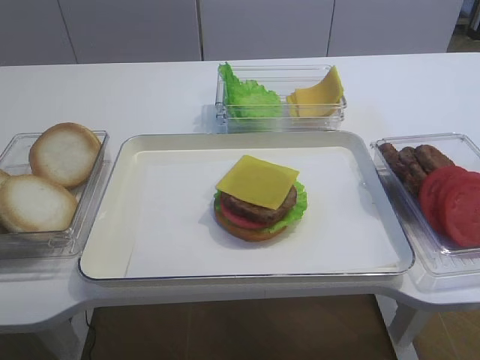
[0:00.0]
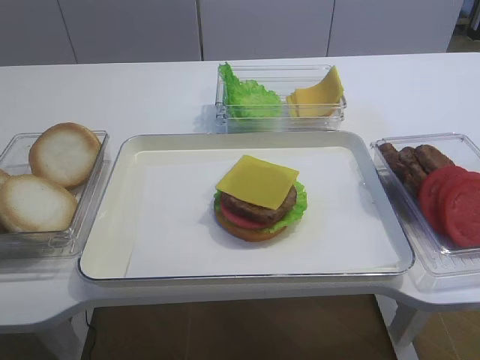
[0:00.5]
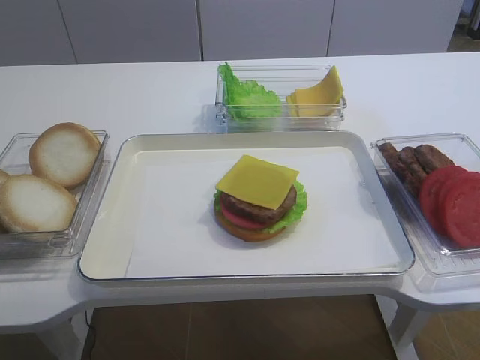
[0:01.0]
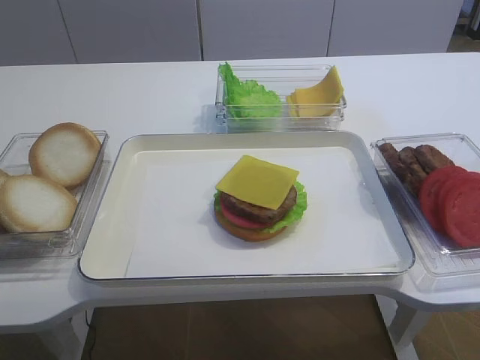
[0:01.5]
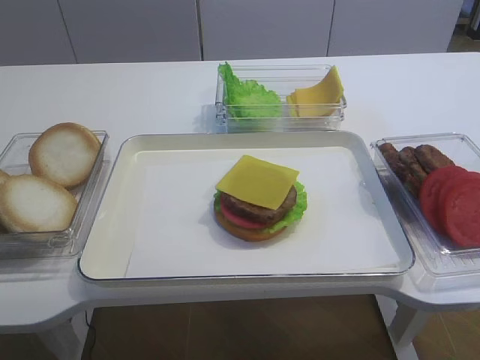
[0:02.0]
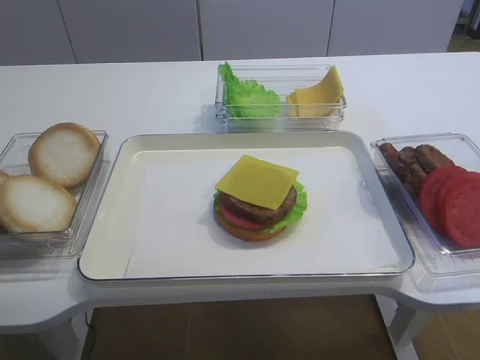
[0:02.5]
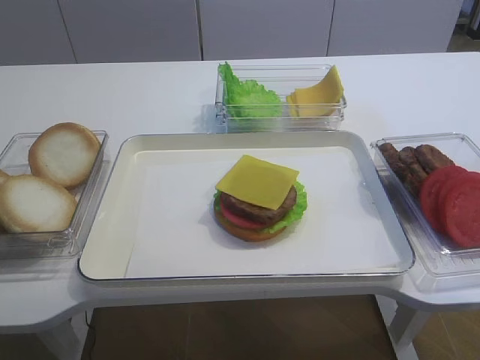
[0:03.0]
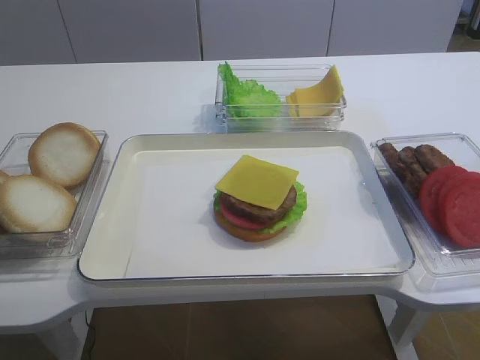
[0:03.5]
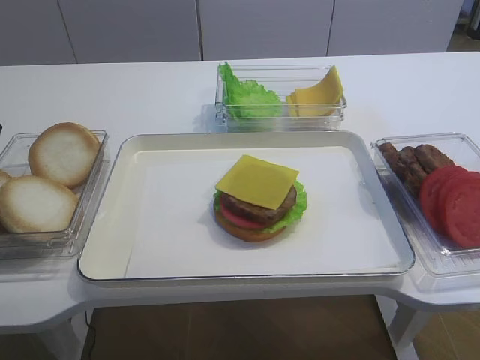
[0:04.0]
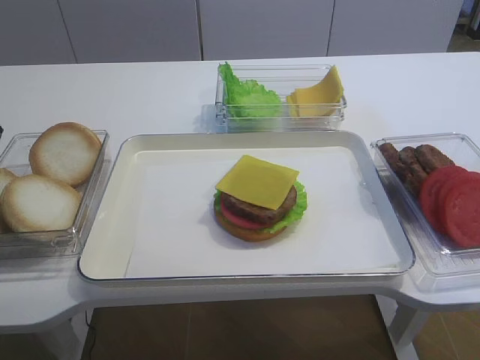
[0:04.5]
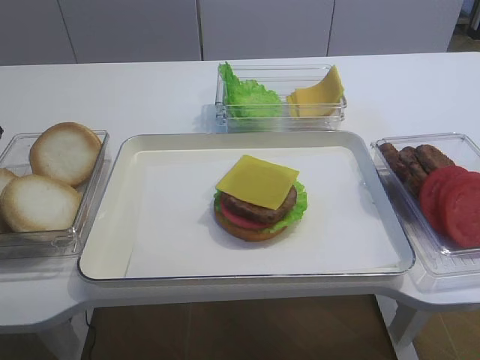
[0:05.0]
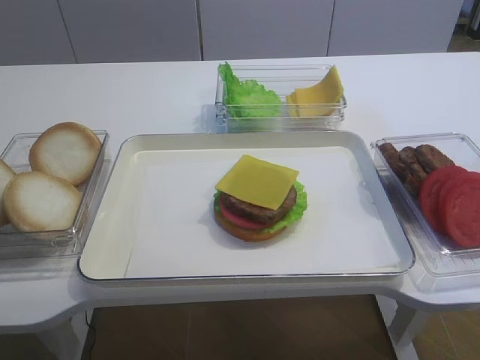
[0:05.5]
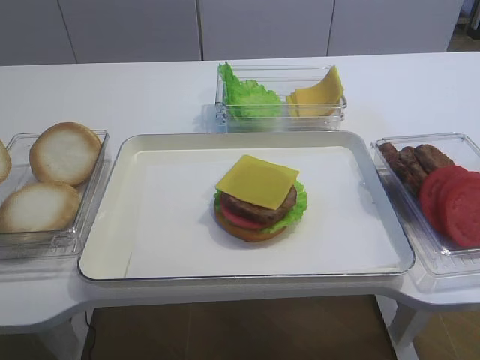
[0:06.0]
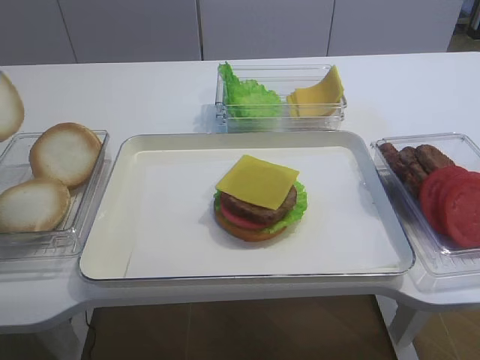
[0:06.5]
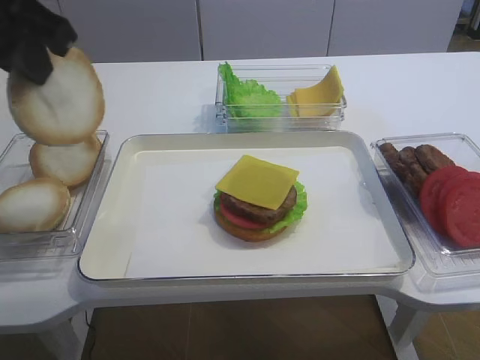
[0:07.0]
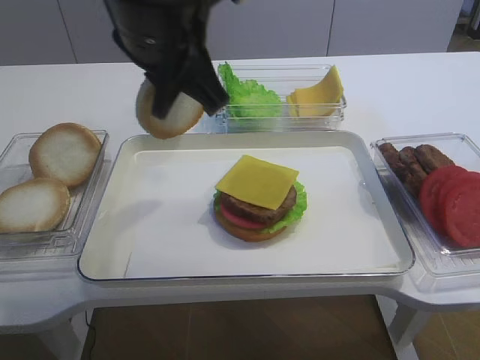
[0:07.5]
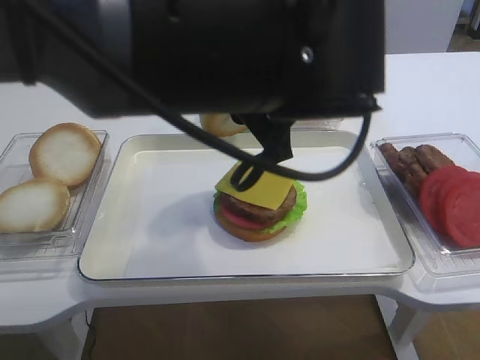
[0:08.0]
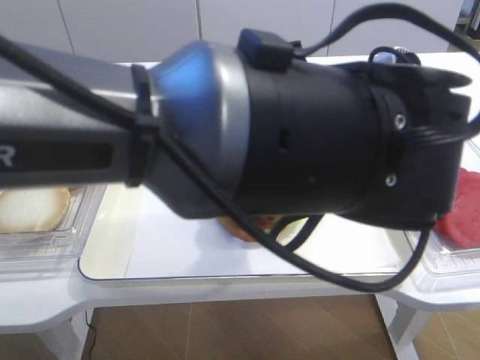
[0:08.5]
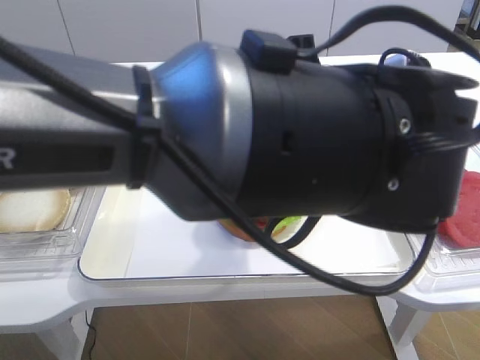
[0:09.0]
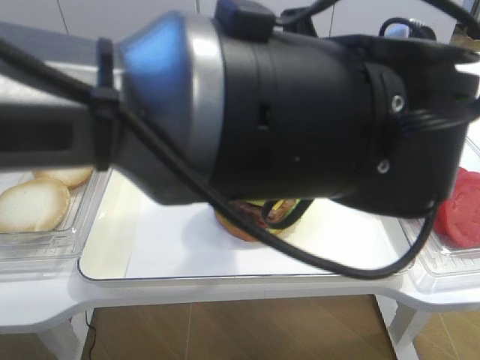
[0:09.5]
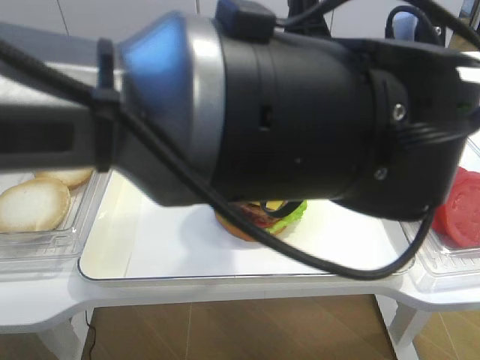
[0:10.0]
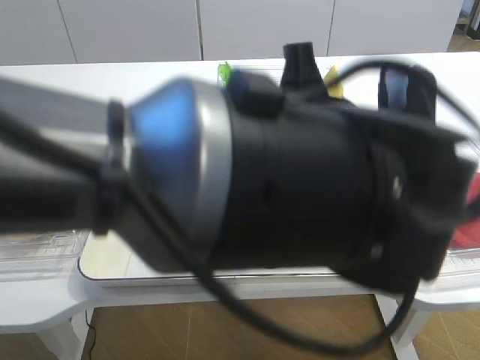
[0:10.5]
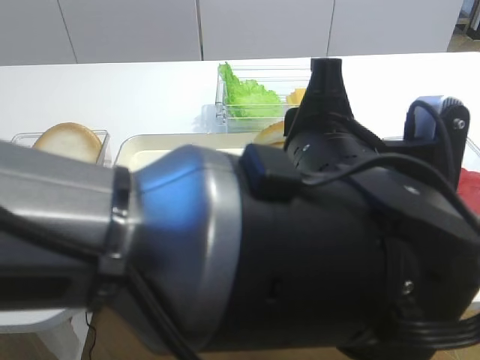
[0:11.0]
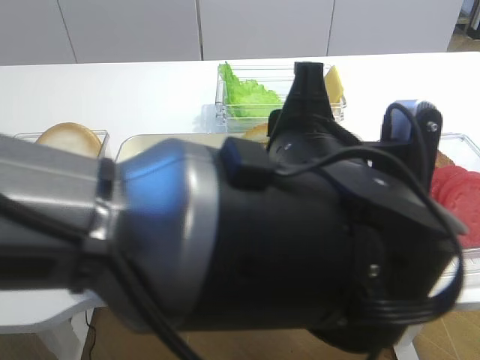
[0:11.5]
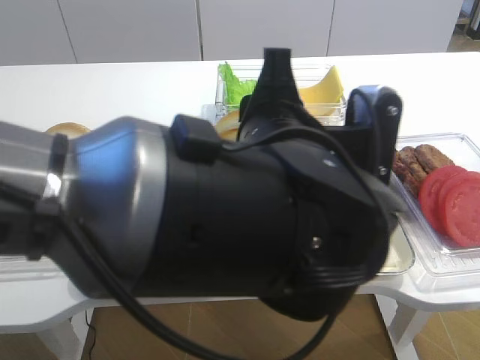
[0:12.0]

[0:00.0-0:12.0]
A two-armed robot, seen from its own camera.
Step, 0:00.0 to 0:06.0: Pick up the hamburger lid with the left gripper.
0:04.0 to 0:06.0: The left gripper travels upward by some 5 cm, and closes up.
0:06.0 to 0:08.0: The left gripper travels to the right by about 35 cm.

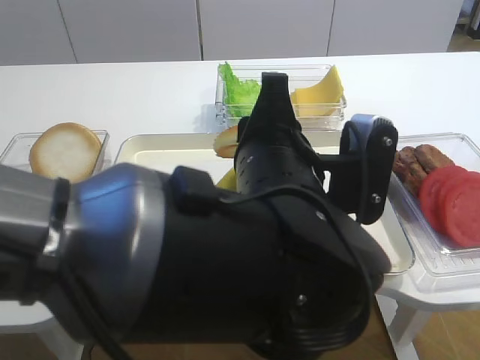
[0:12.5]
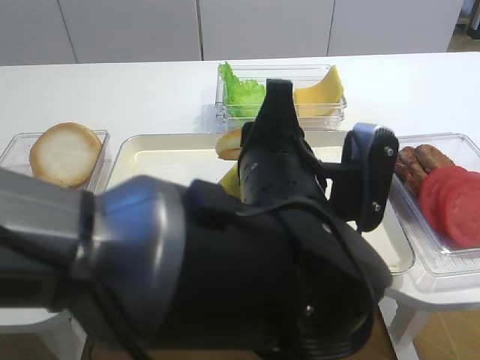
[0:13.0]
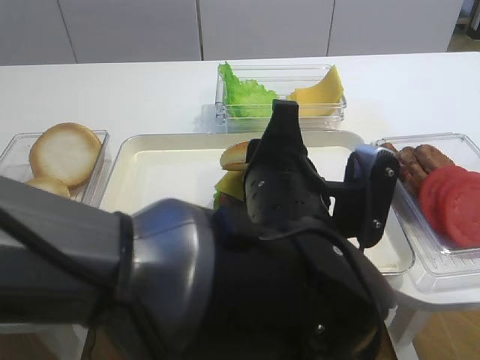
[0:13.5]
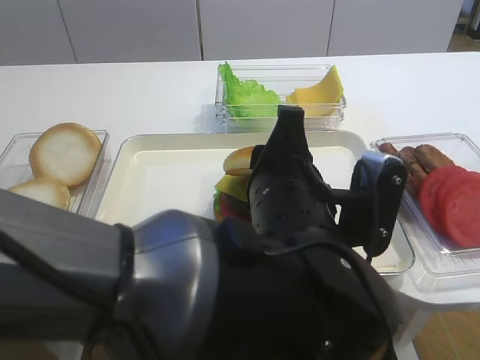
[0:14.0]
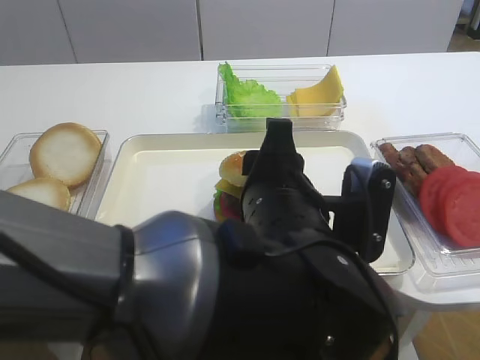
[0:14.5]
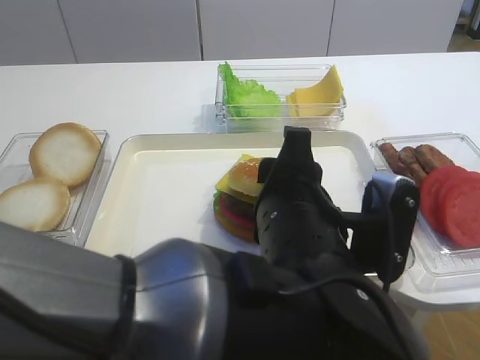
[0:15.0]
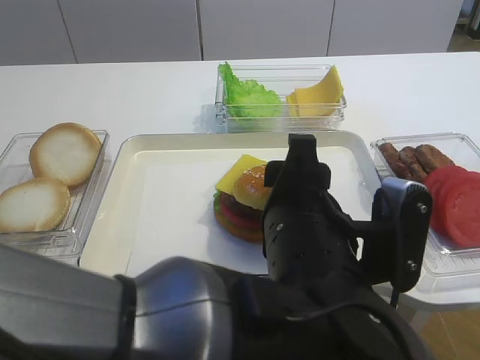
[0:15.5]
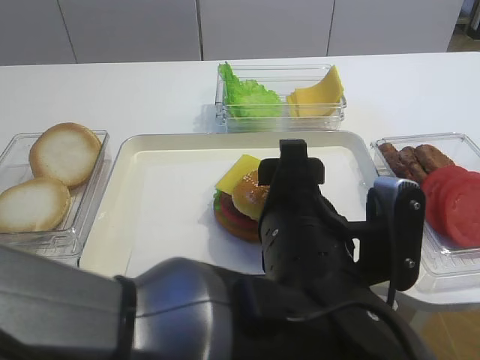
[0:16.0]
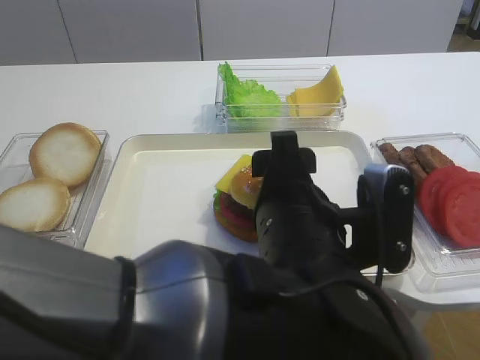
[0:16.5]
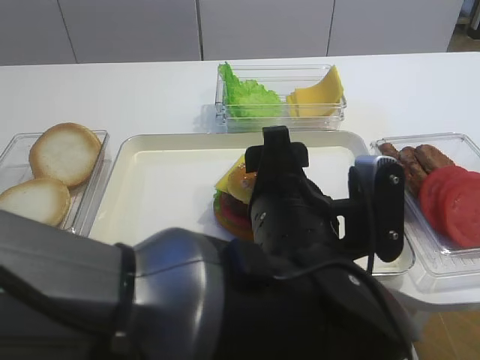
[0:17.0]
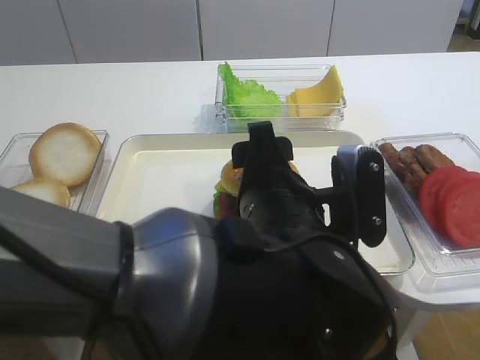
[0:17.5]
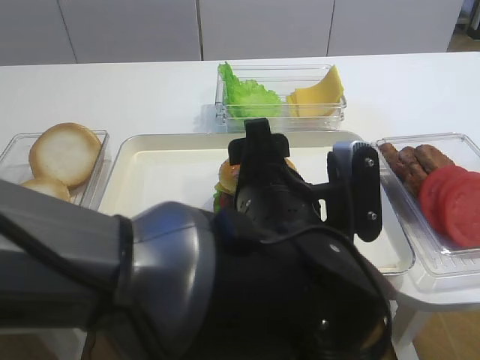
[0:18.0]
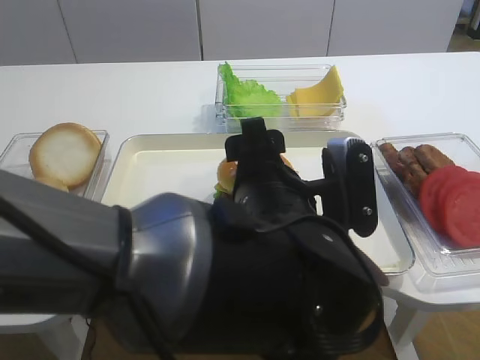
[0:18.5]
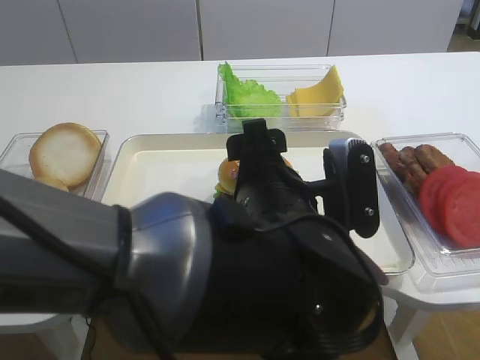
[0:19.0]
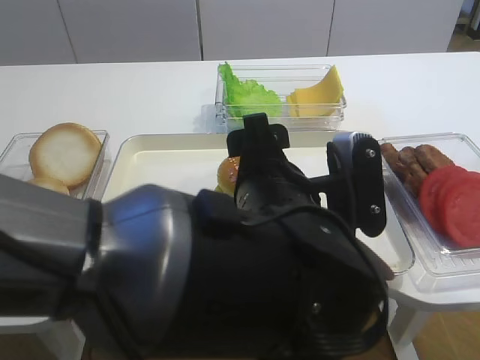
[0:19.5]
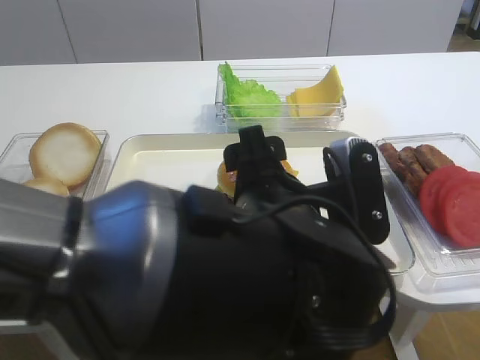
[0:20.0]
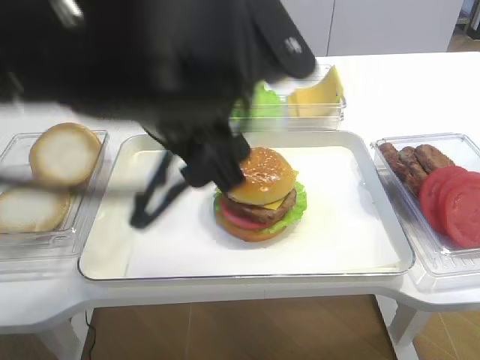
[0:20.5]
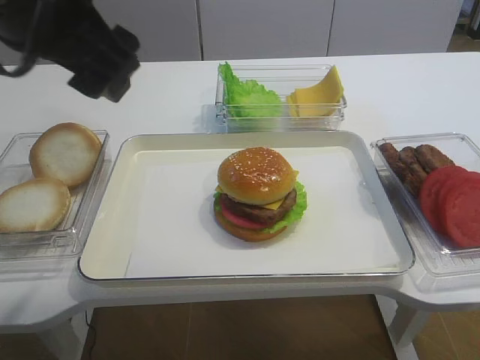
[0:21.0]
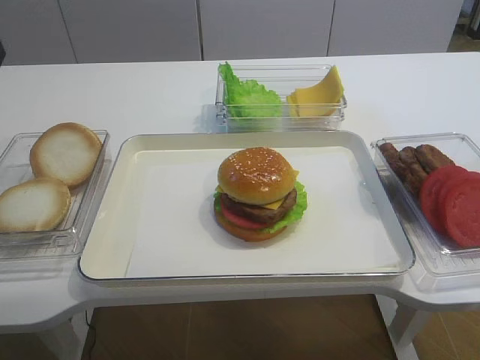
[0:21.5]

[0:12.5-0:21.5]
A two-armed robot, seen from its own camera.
Step, 0:12.5 to 0:20.5: Place the hamburger lid on the cheese slice with the left gripper.
0:14.5 to 0:17.0: The left gripper opens up.
0:19.5 to 0:21.5: The left gripper is displaced to the left and upward by approximately 30 cm.

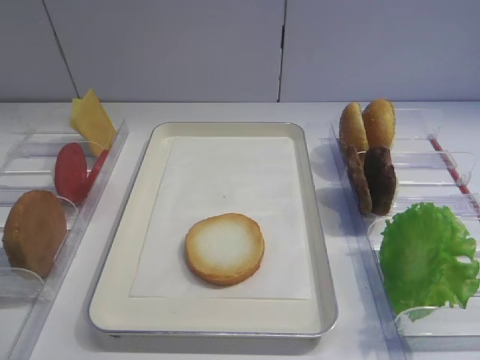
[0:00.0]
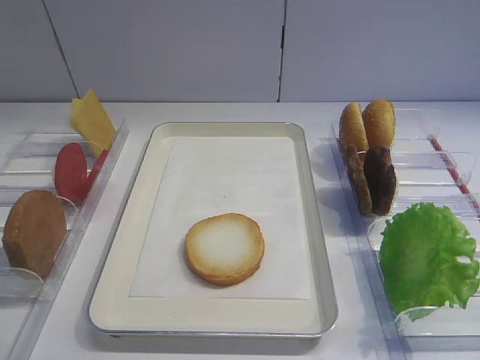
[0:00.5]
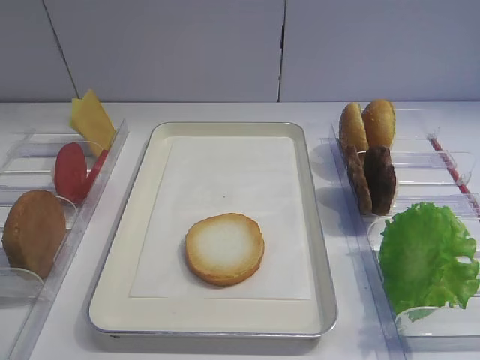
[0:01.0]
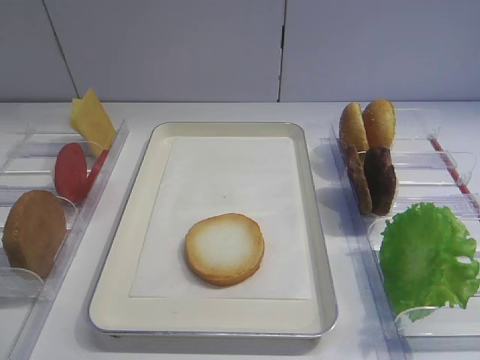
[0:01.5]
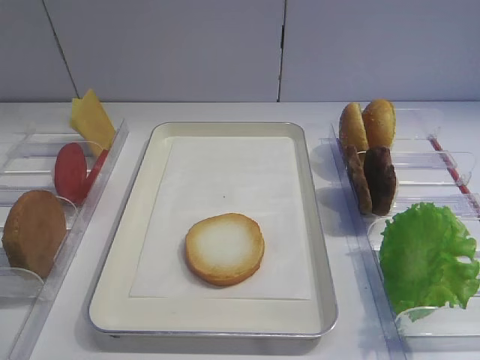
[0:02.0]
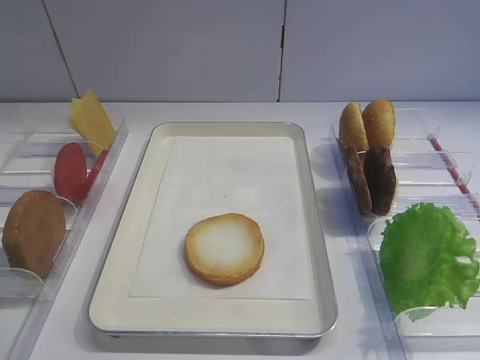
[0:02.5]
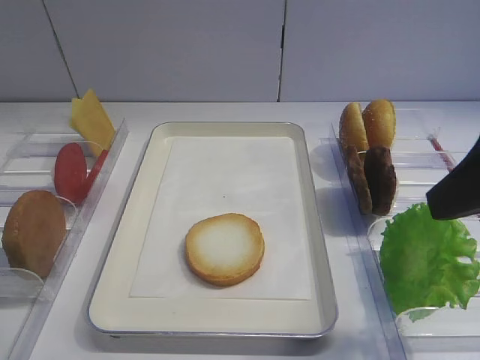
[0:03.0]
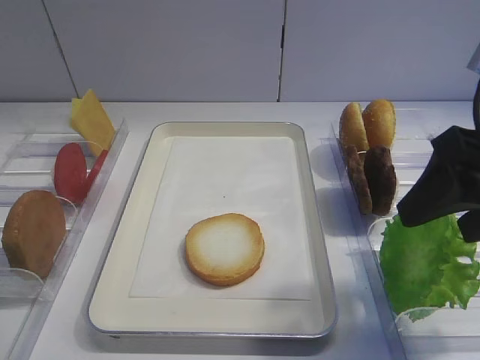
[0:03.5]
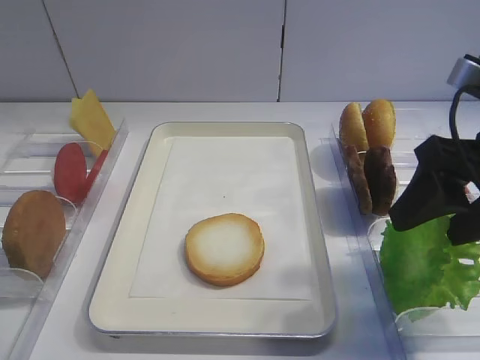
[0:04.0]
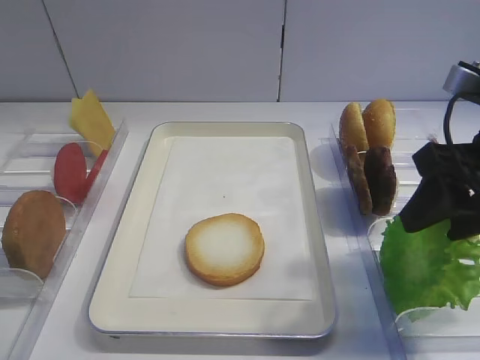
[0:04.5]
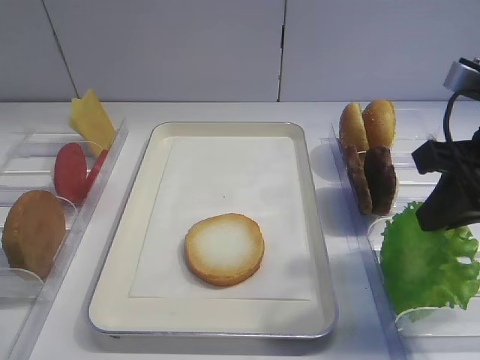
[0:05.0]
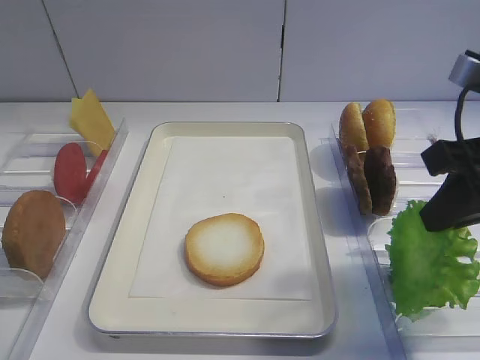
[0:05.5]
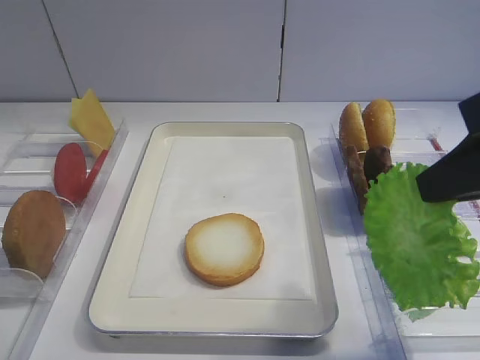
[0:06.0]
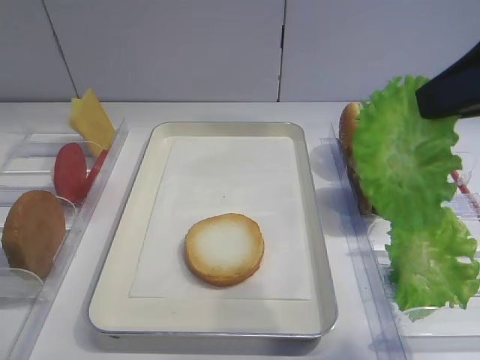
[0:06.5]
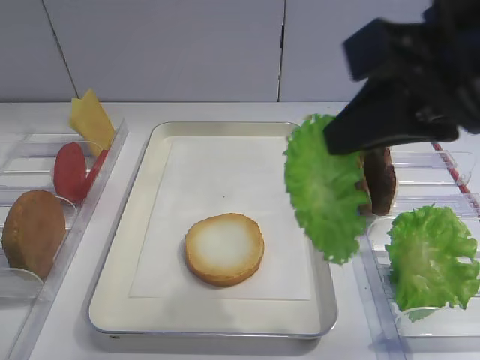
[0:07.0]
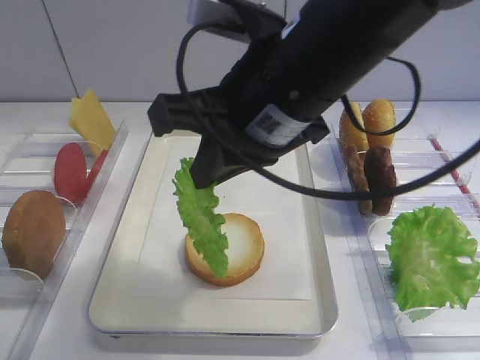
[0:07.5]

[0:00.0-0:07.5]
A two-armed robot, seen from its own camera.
Step, 0:00.0 to 0:06.0: Pick up the lettuce leaf with the right gripper.
0:02.0 to 0:04.0: The right gripper goes roughly 20 cm forward.
0:04.0 to 0:05.5: The right gripper closes its fingers.
0:05.5 to 0:07.5: The right gripper heads to the left, covering approximately 20 cm.
